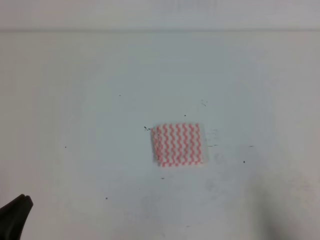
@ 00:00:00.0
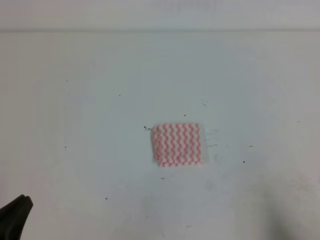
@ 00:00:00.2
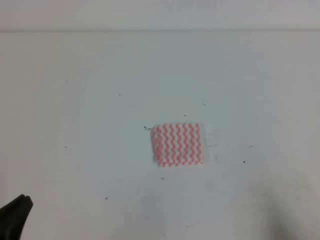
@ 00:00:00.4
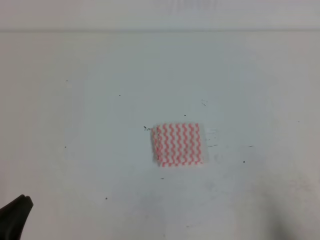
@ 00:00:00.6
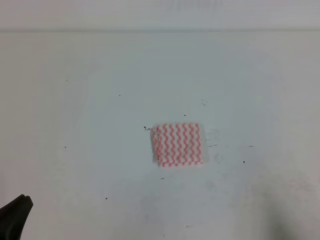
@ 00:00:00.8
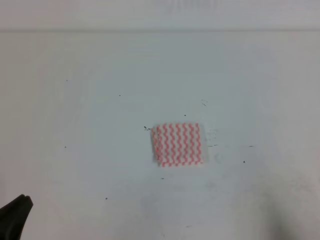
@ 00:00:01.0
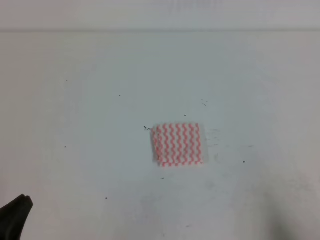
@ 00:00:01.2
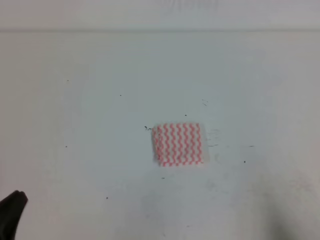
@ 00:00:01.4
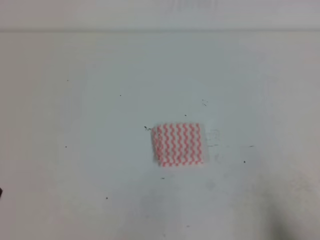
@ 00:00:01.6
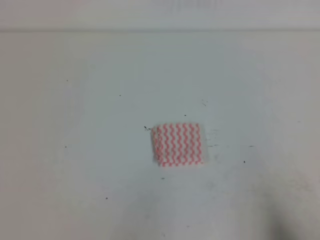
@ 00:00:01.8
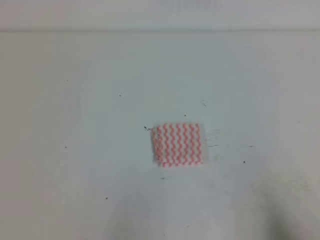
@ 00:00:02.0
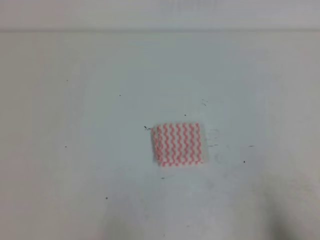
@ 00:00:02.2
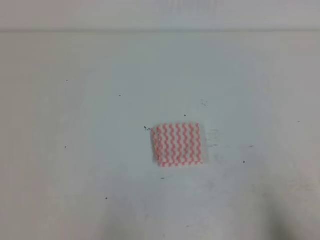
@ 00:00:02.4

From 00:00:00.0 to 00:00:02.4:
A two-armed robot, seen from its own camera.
Step, from 00:00:00.0 to 00:00:02.4: Fold the towel.
From 00:00:01.2 to 00:00:02.4: The grippers make only small movements.
